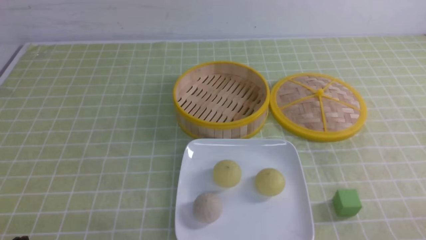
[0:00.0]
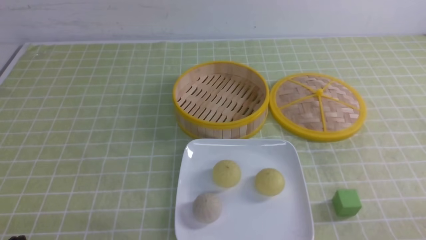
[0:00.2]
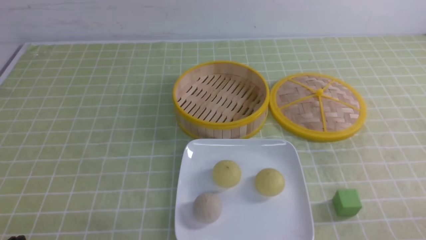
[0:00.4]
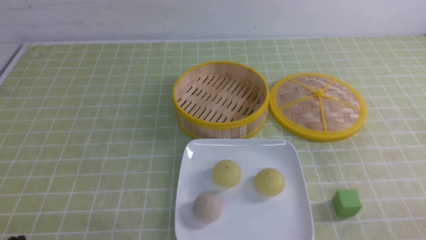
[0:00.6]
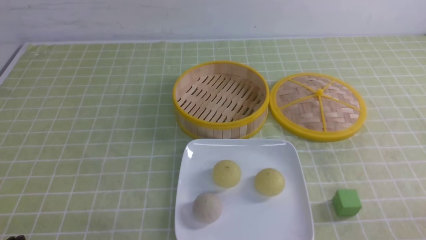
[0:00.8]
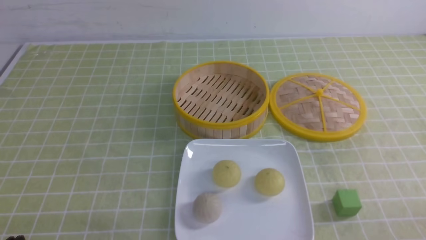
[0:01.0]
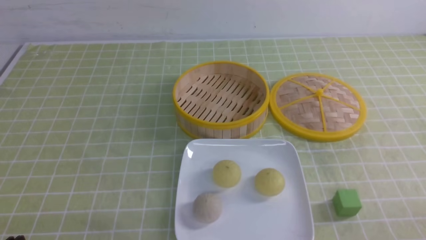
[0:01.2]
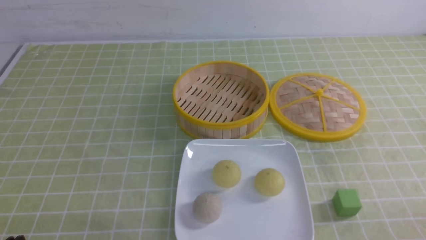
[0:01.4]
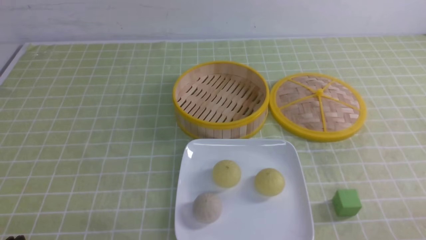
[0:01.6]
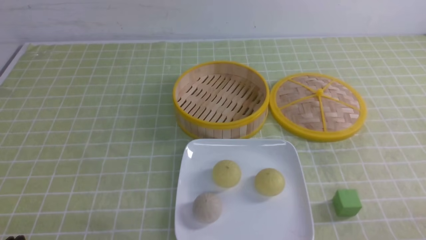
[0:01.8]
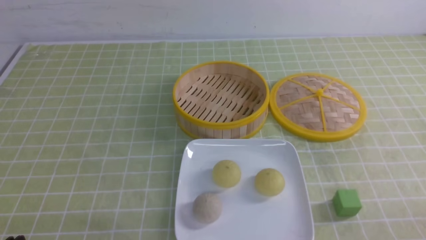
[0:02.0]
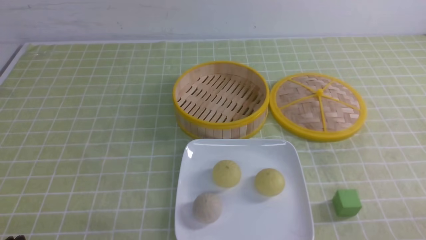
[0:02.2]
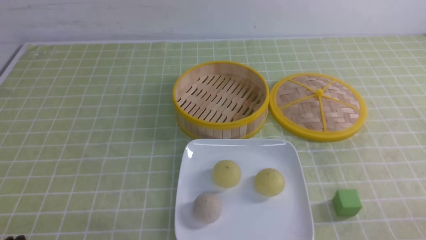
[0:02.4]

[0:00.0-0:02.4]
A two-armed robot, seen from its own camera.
0:00.0 to 0:02.4: The two grippers keep their place.
